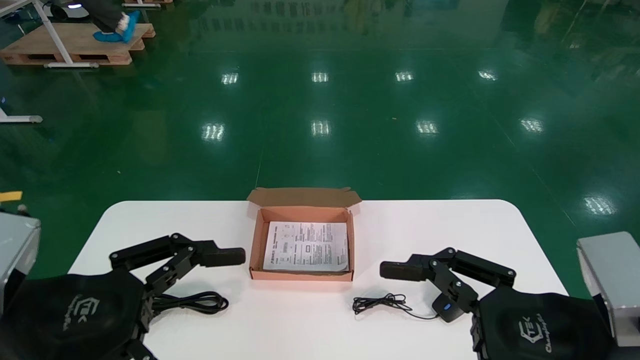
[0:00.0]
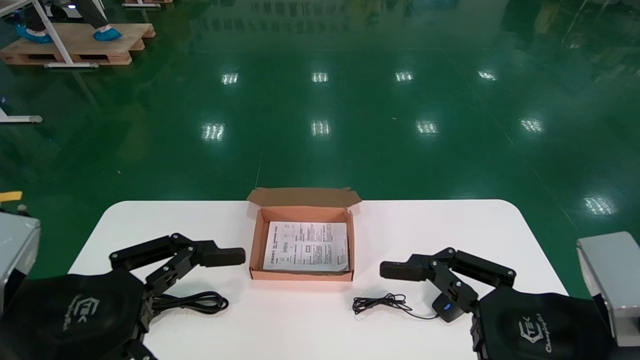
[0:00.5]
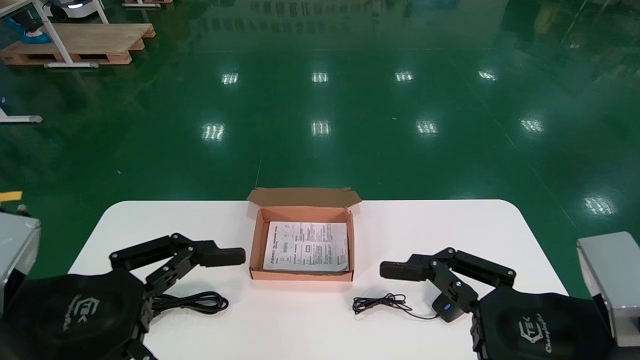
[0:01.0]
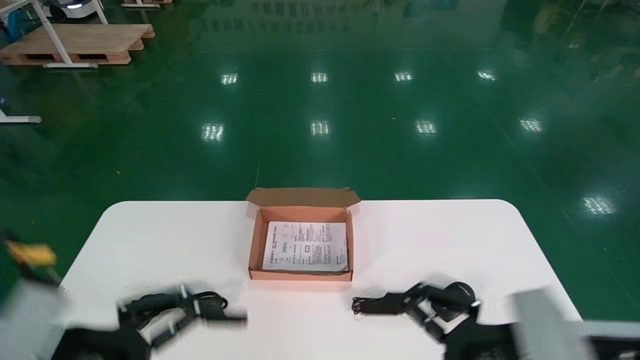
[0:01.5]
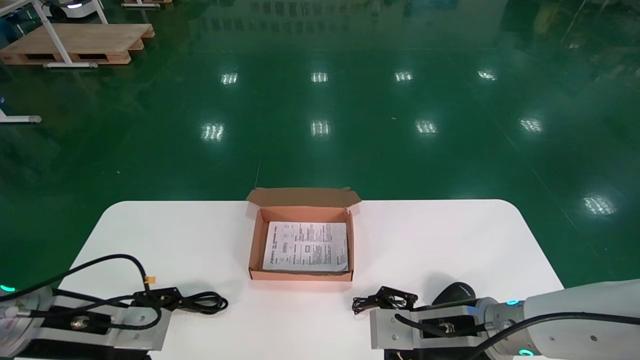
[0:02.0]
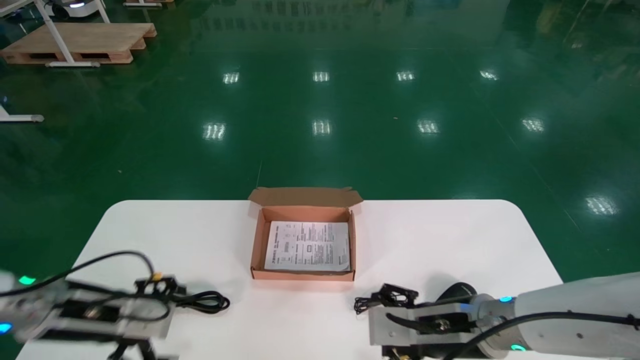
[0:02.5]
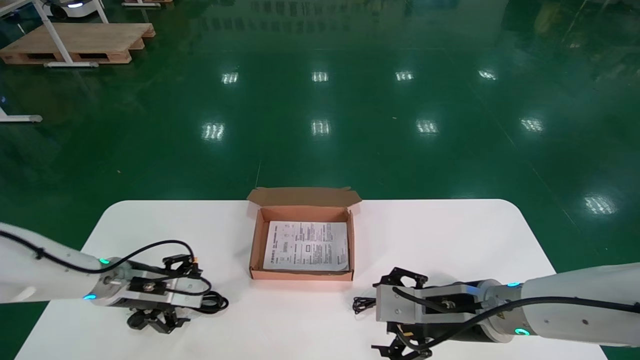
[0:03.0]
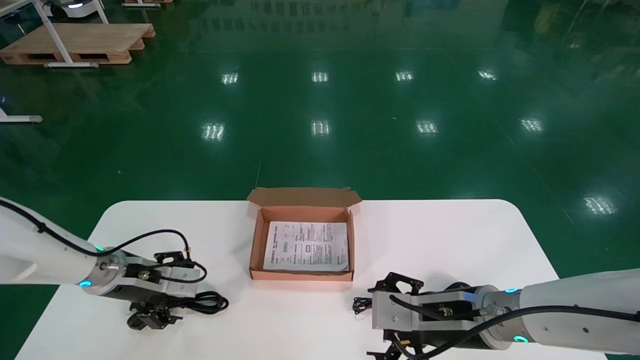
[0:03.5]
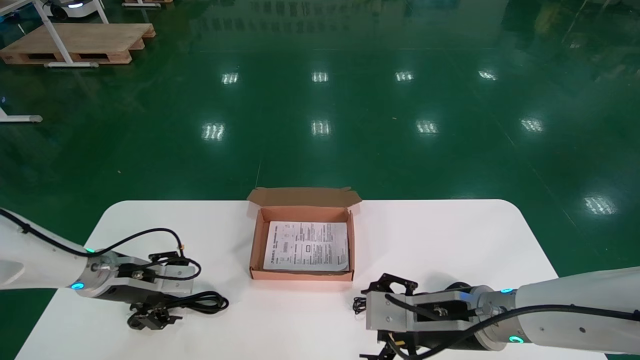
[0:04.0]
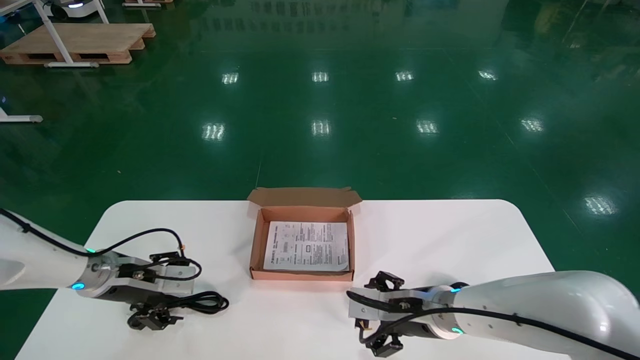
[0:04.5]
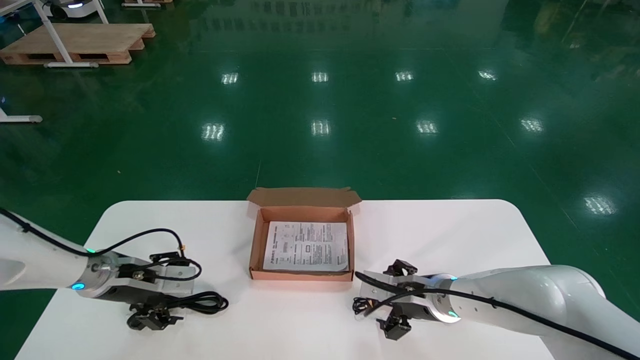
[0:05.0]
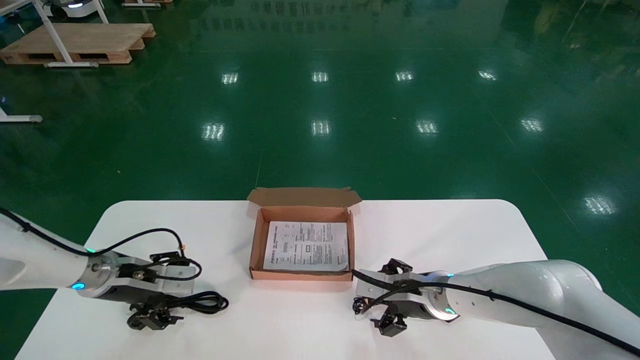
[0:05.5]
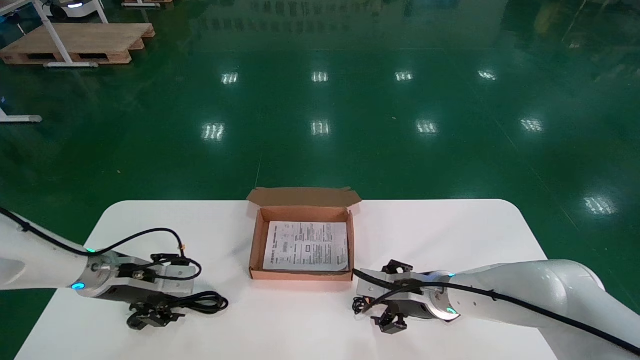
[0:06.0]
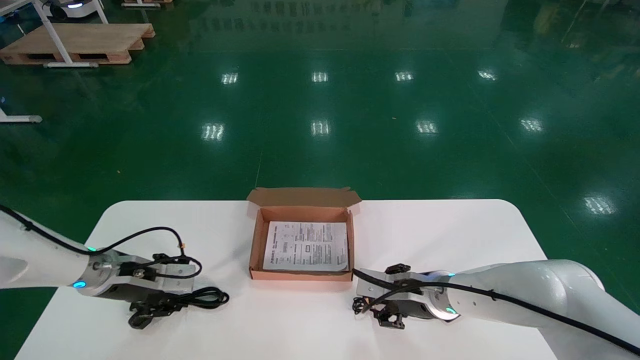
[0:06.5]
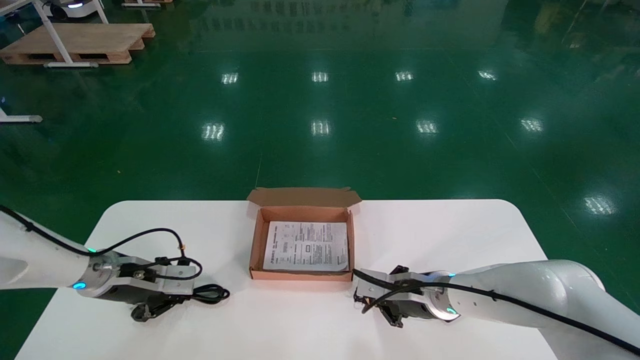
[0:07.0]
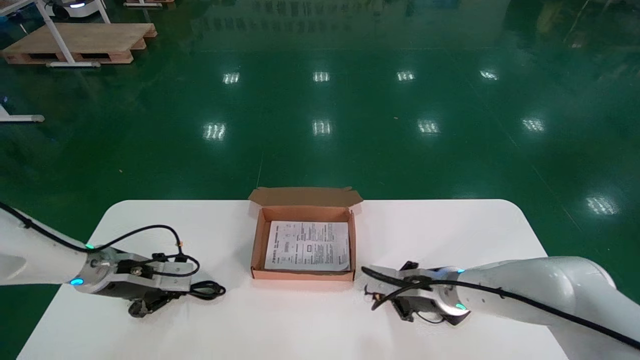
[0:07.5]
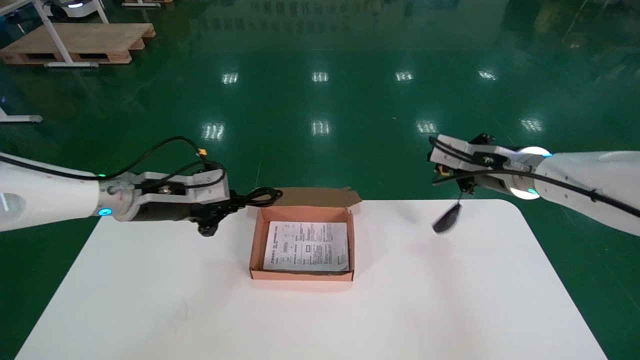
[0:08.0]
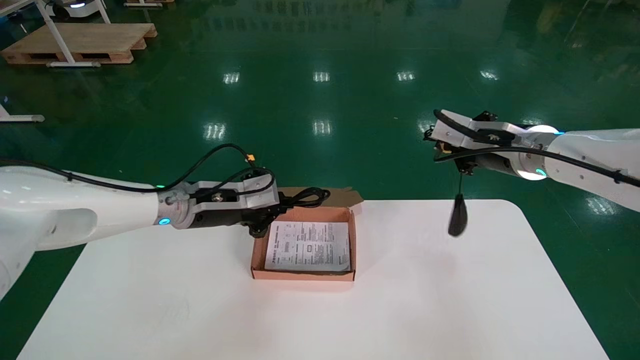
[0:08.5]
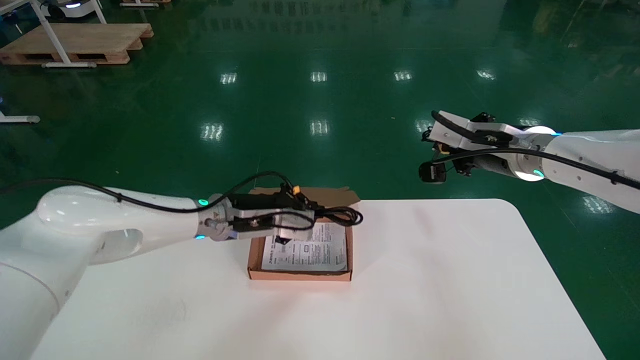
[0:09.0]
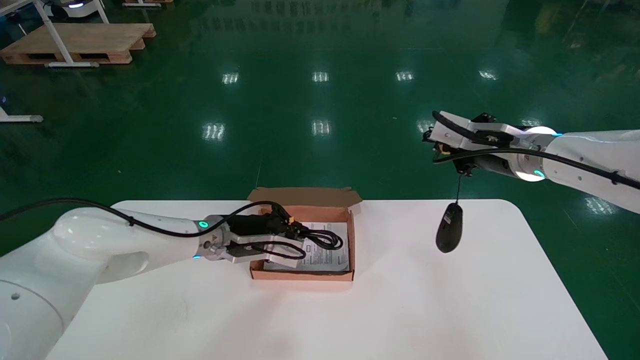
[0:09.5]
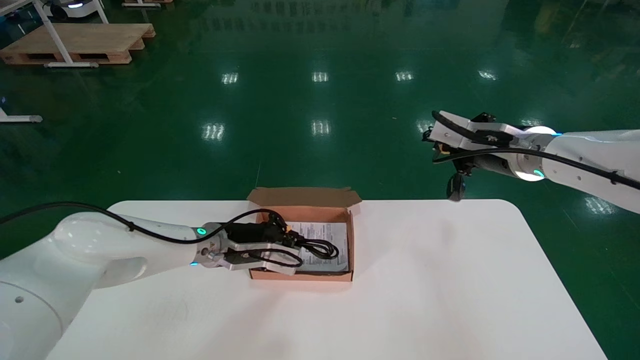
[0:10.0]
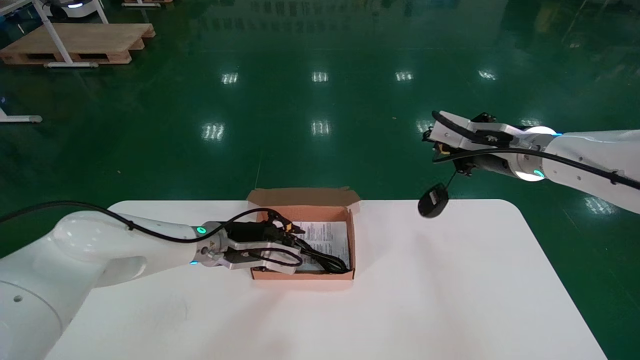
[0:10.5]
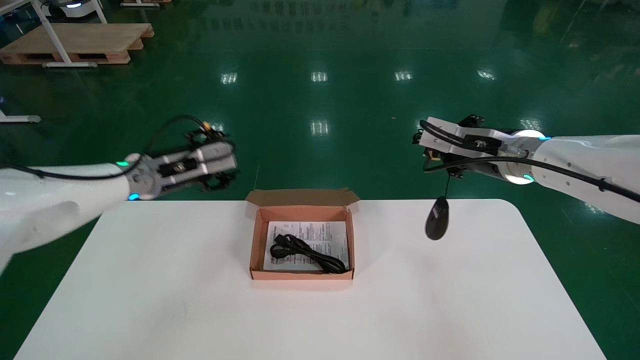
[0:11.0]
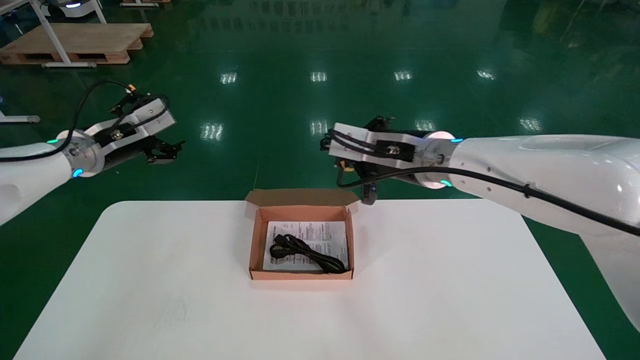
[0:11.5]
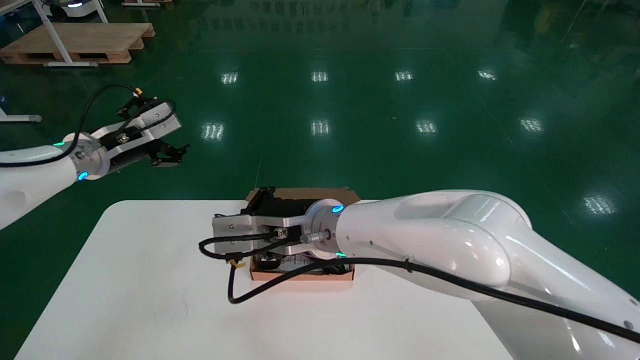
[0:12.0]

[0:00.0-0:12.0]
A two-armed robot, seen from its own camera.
Step, 0:01.5 to 0:07.0: Simultaneously pick up the mouse and power cord from the accessory packaging area.
0:00.0 to 0:02.0: The left gripper shifts roughly 15 cm forward and downward; the right gripper is displaced forward, downward and to the left by roughly 15 cm.
0:02.0 to 0:04.0: The left gripper goes roughly 15 cm forward.
0:04.0 to 0:06.0: The right gripper is displaced forward by about 10 cm.
0:06.0 to 0:08.0: The right gripper travels upward and to the right by roughly 20 cm, and closes. Meanwhile the left gripper travels upward and to the right by roughly 15 cm, and closes.
0:08.0 to 0:10.0: The left gripper heads to the right and downward, covering approximately 15 cm.
0:10.0 to 0:12.0: The right gripper heads to the left, covering approximately 25 cm, while the left gripper goes about 25 cm to the left and upward, and opens its fingers.

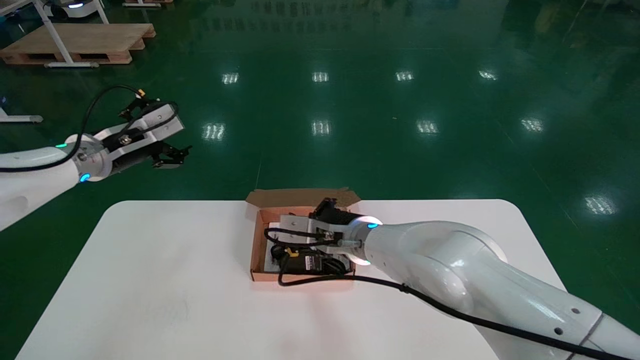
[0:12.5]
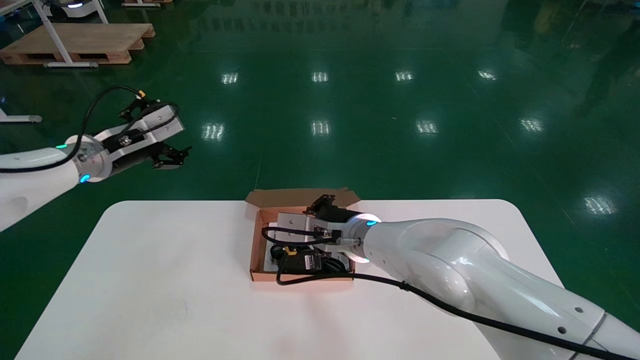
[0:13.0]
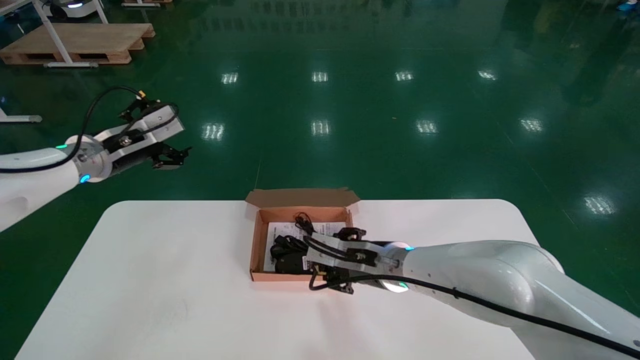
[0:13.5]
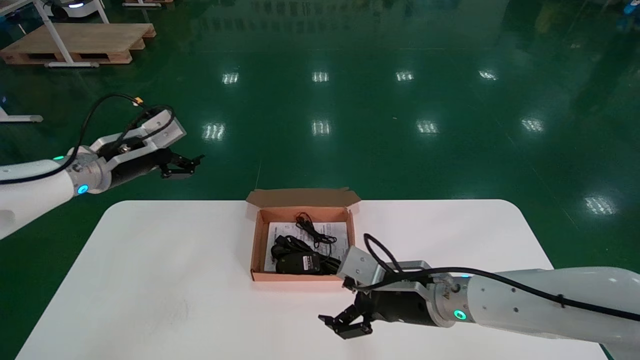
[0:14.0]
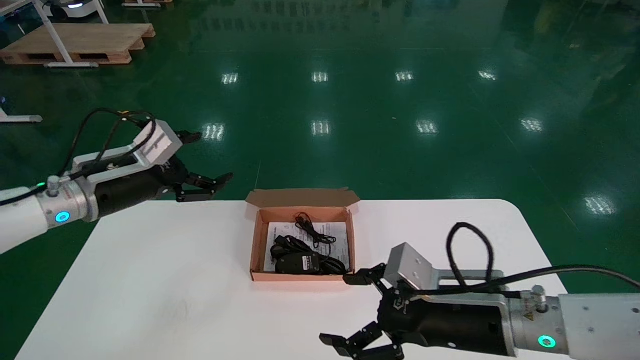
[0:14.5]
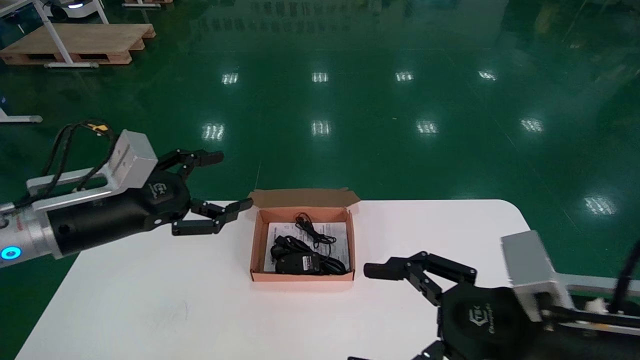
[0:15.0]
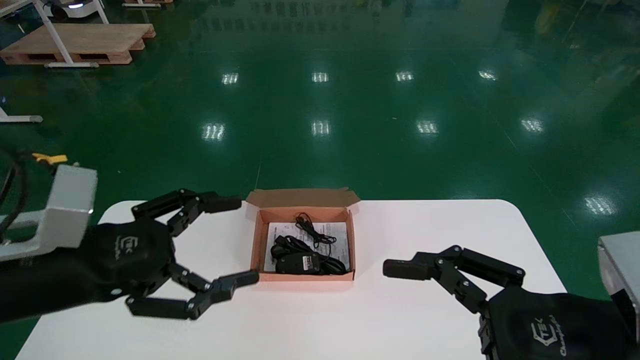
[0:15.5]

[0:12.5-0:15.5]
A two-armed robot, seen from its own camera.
0:12.5 to 0:14.0: The right gripper shifts about 15 cm to the right, downward and backward, and opens.
0:14.0 to 0:15.5: The left gripper is displaced backward by about 20 cm. Meanwhile the right gripper moves backward and to the right, some 20 cm.
